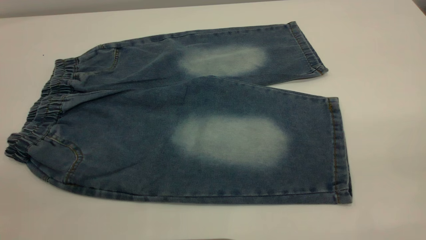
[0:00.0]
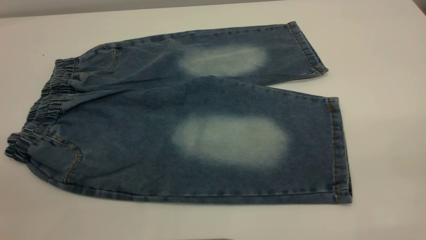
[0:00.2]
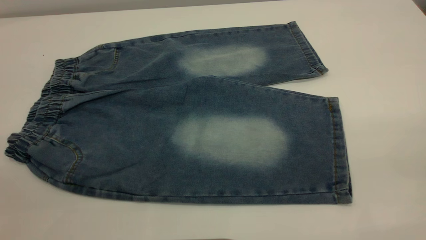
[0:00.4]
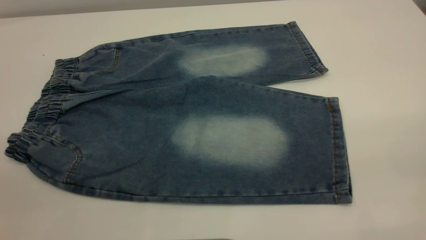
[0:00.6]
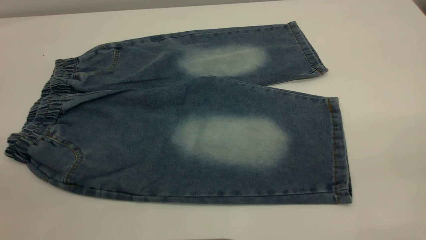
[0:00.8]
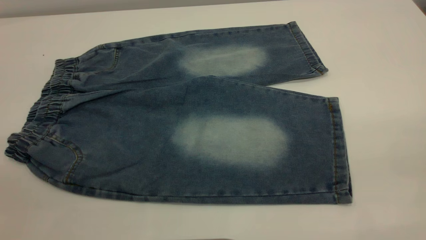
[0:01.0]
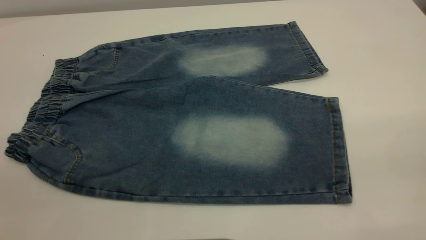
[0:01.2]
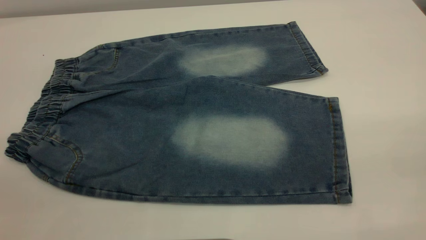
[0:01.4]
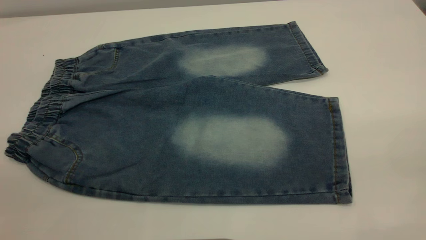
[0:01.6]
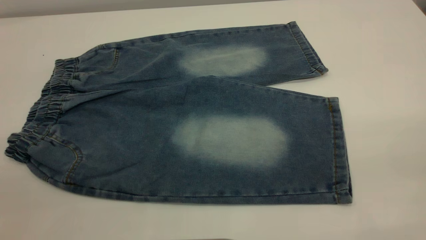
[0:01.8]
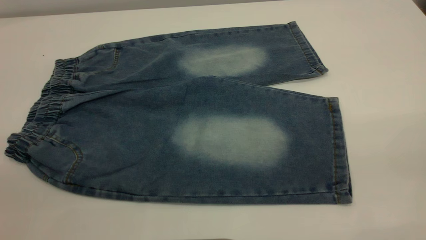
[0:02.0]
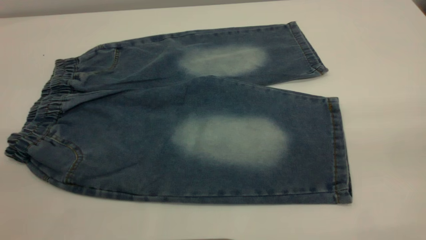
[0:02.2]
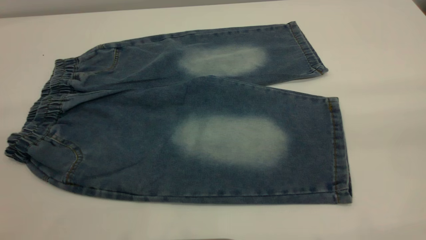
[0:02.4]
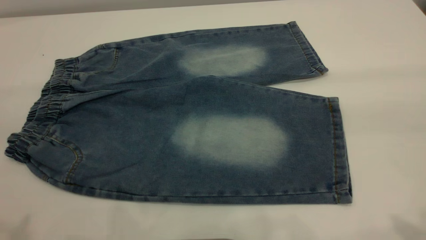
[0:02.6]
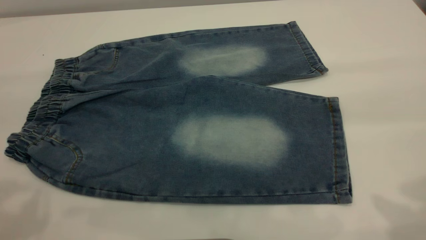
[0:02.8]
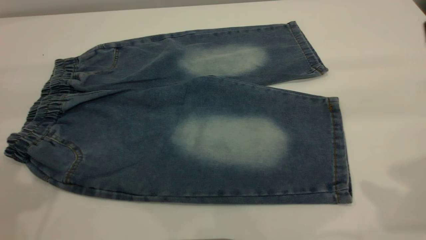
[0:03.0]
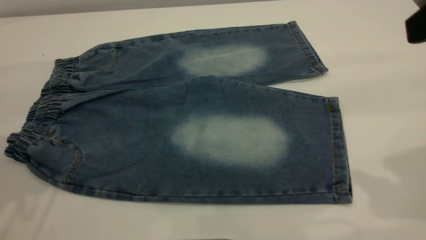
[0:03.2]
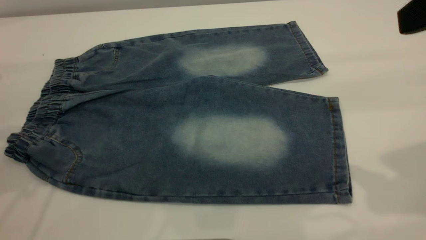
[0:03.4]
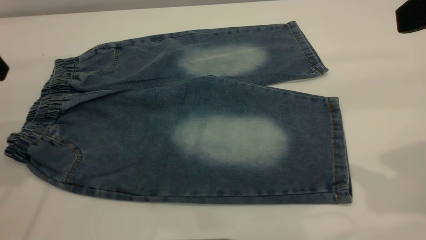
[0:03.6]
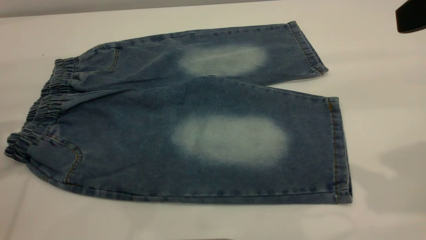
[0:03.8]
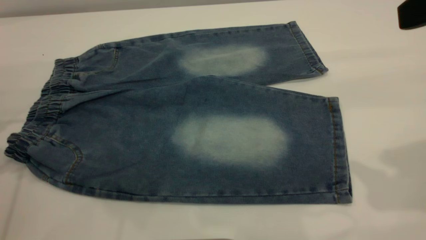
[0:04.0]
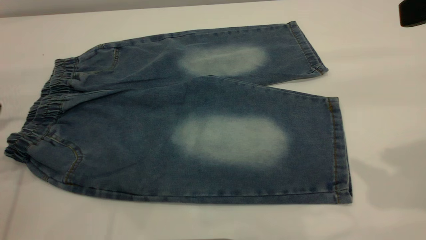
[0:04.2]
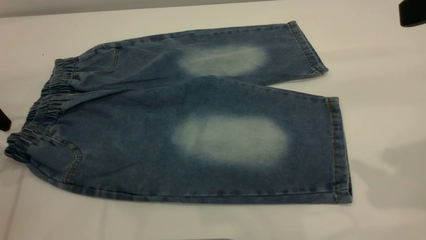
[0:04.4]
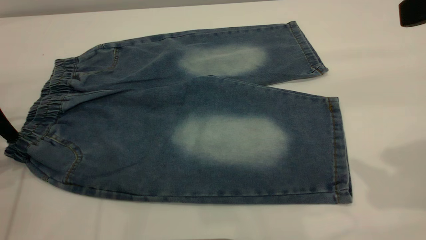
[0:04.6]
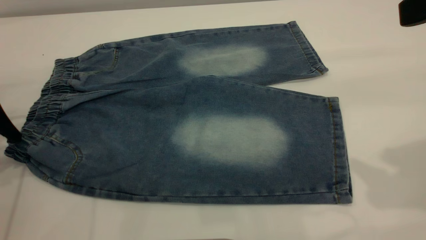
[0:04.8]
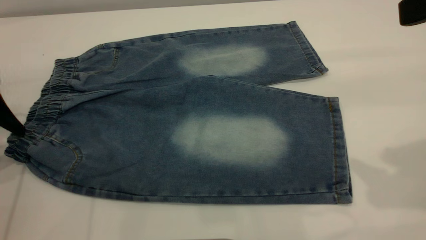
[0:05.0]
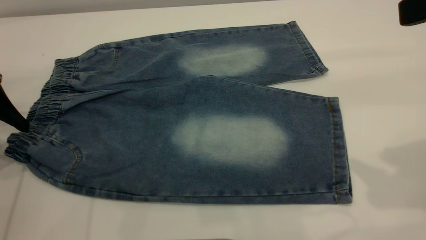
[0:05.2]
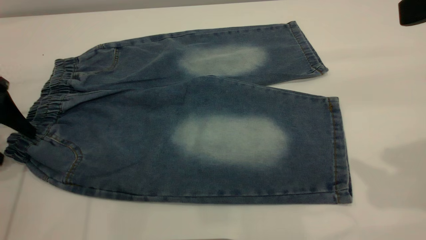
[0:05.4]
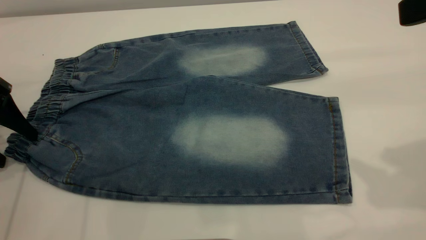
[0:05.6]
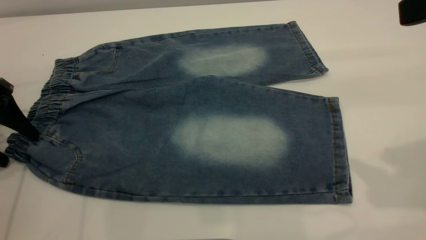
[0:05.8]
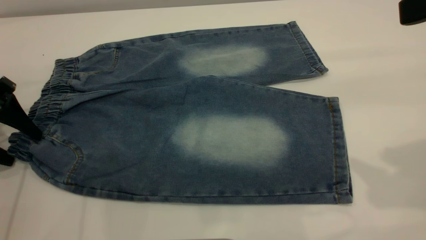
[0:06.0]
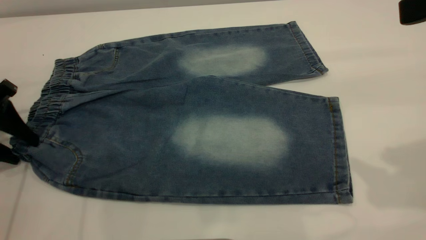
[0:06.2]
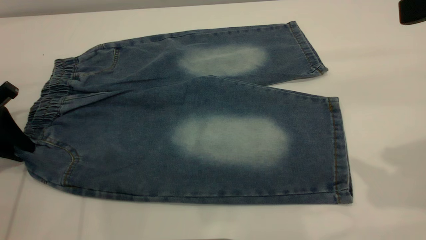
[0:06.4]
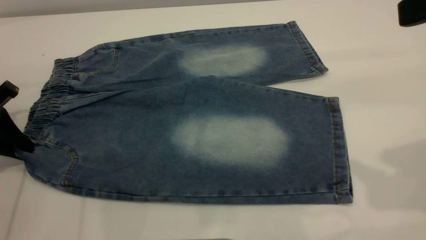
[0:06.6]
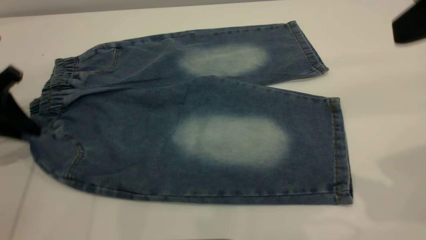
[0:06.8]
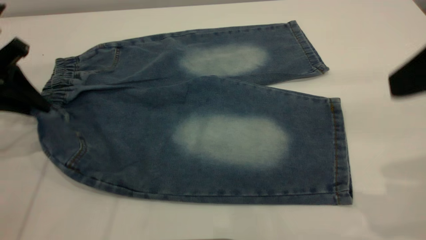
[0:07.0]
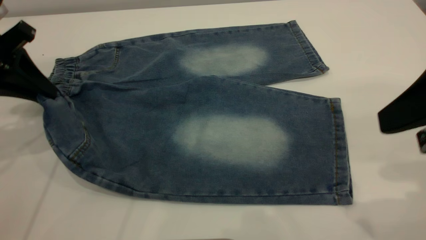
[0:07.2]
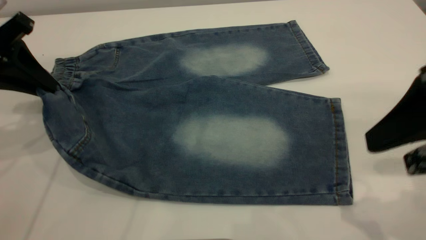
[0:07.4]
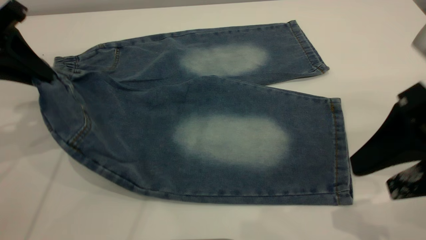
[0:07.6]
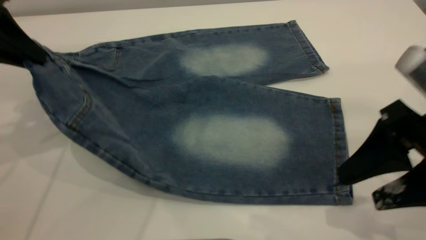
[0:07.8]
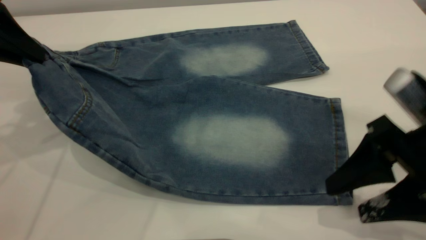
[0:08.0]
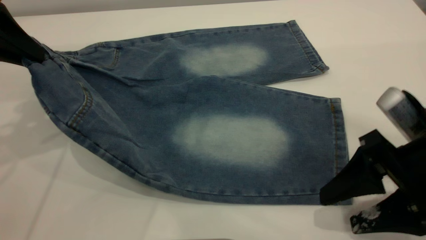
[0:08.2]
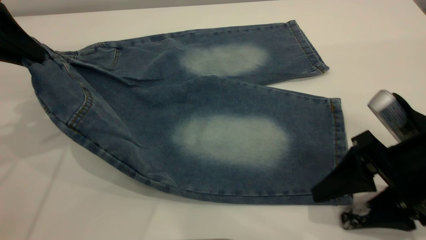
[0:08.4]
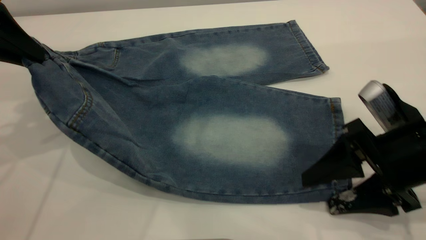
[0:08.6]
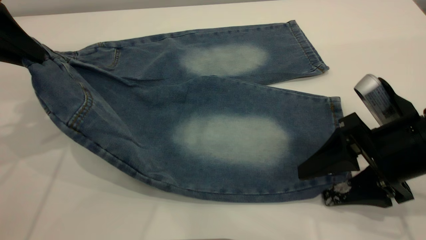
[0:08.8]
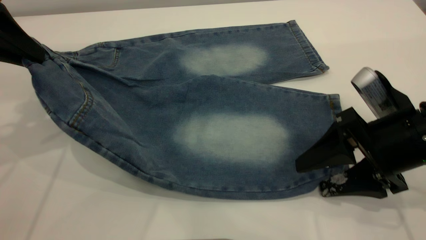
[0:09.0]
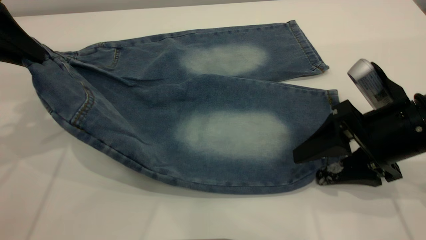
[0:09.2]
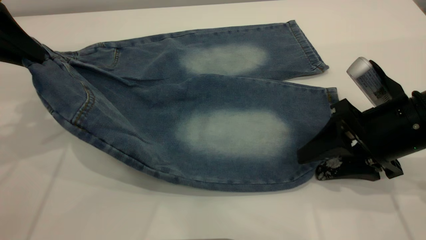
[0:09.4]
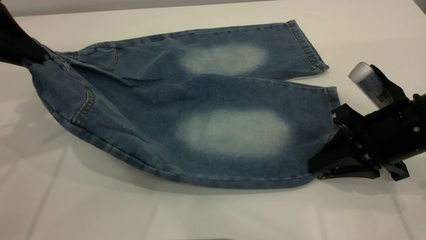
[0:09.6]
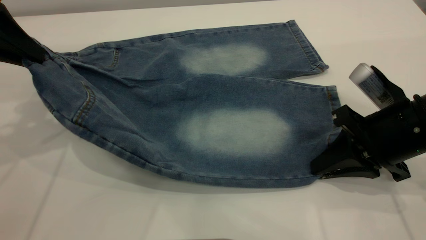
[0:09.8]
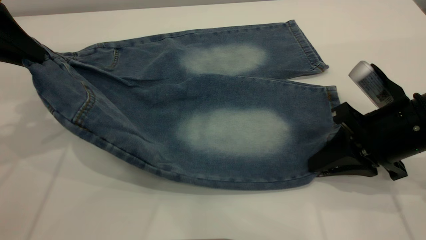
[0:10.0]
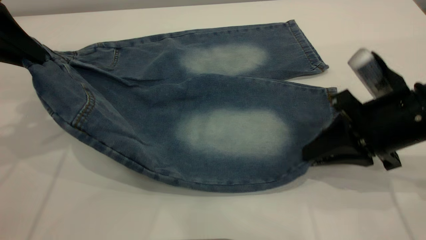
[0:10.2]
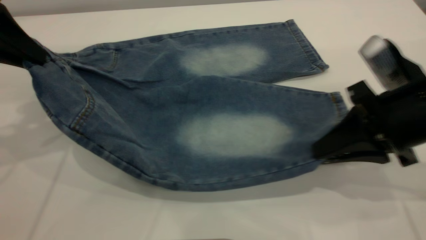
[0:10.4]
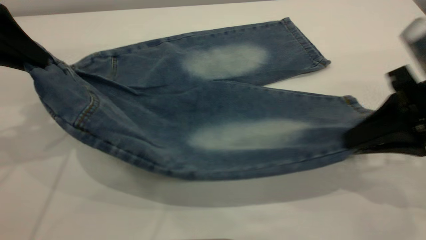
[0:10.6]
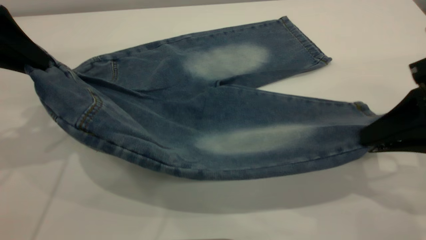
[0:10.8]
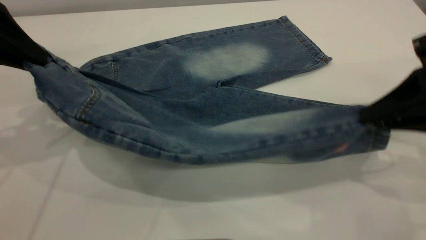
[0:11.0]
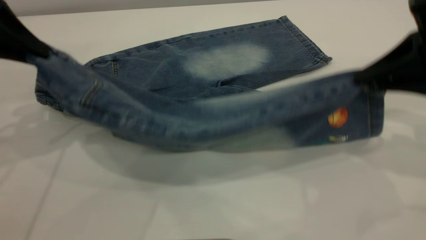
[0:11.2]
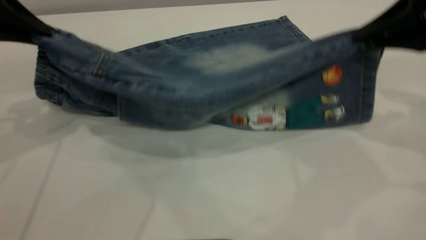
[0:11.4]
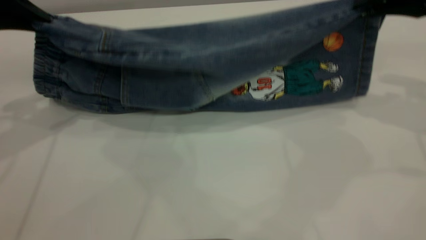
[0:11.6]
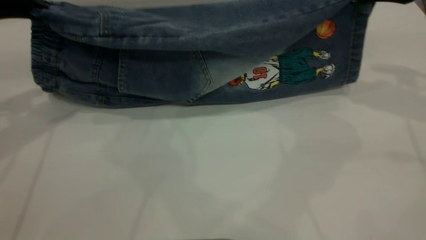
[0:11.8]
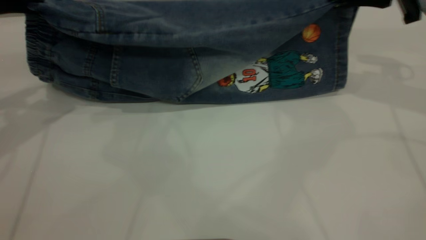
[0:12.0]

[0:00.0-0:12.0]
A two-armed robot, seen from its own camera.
0:00.0 to 0:01.6: Neither gripper changes place.
0:04.4 to 0:06.0: The left gripper goes some 5 cm downward.
0:06.0 to 0:07.6: The right gripper goes approximately 10 cm downward. The left gripper shifts roughly 10 cm upward and to the right, and closes up.
0:07.6 to 0:09.0: The right gripper shifts some 10 cm downward and forward.
0:09.0 to 0:10.4: The right gripper closes up.
0:10.4 to 0:12.0: The right gripper shifts approximately 20 cm forward and upward.

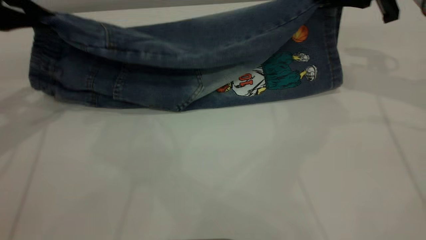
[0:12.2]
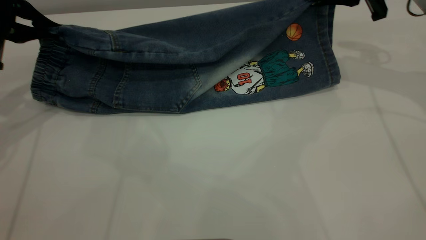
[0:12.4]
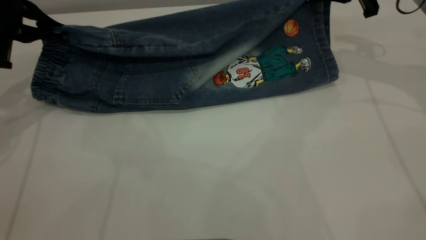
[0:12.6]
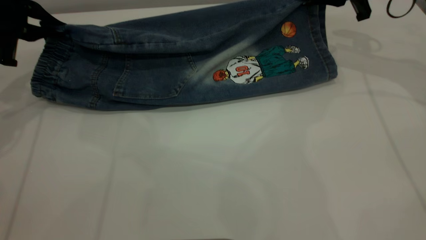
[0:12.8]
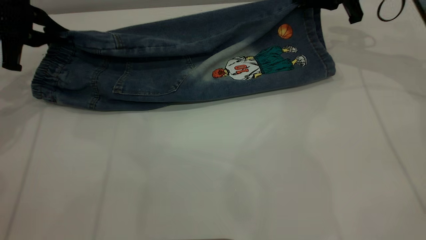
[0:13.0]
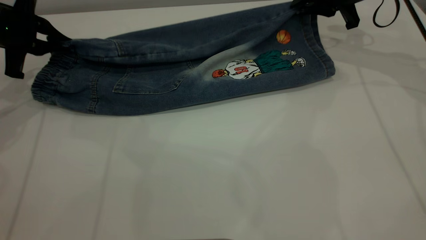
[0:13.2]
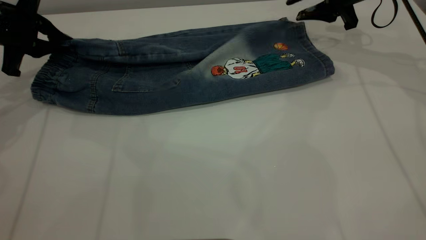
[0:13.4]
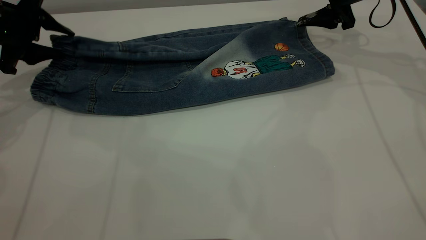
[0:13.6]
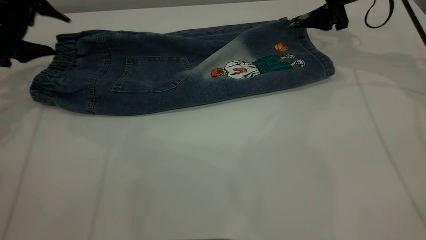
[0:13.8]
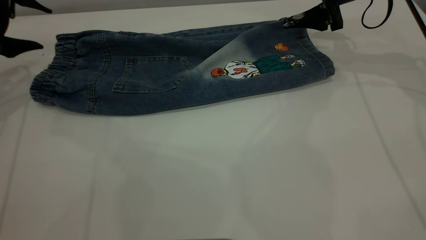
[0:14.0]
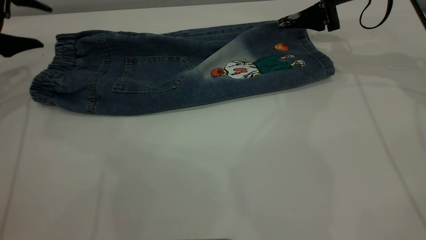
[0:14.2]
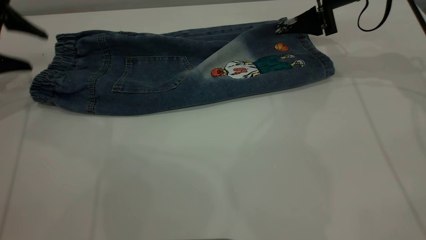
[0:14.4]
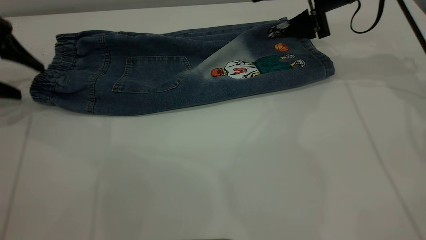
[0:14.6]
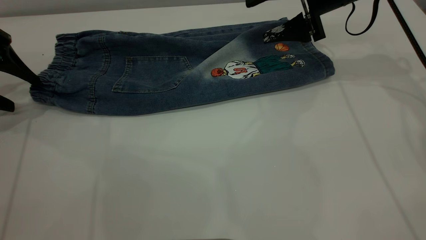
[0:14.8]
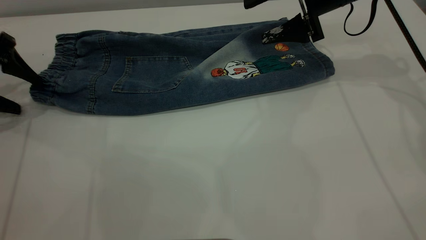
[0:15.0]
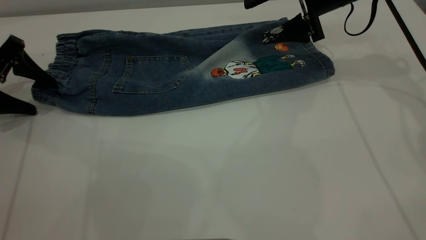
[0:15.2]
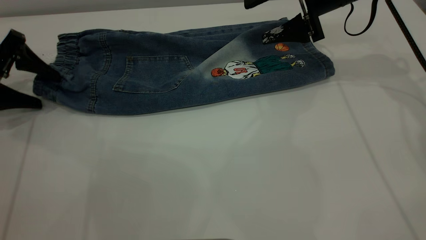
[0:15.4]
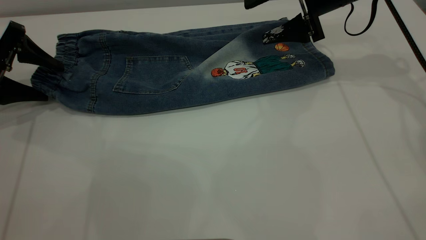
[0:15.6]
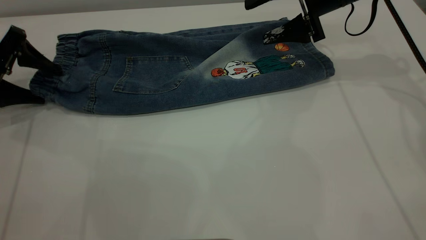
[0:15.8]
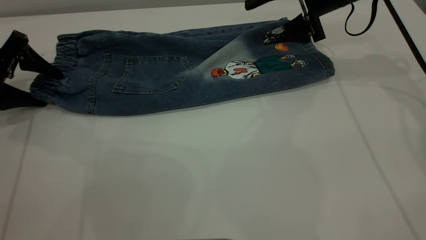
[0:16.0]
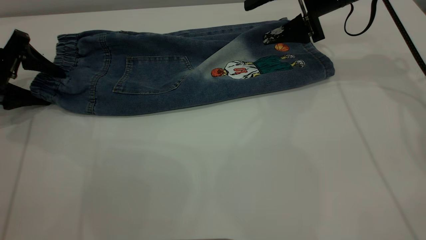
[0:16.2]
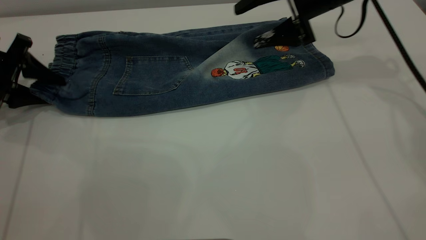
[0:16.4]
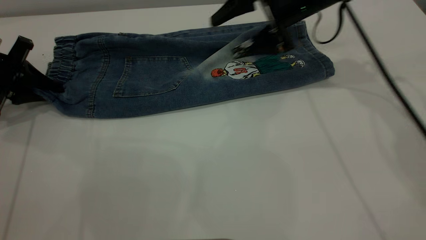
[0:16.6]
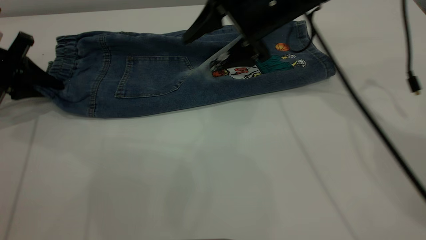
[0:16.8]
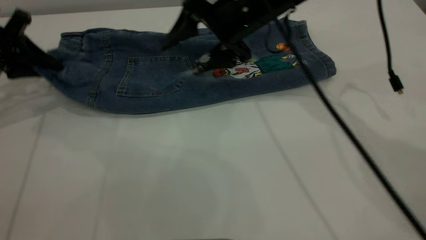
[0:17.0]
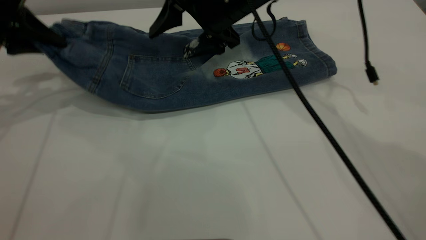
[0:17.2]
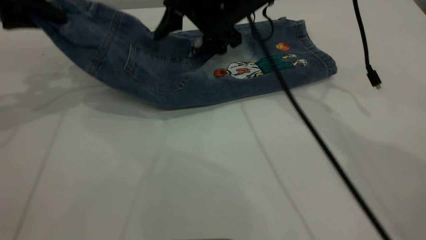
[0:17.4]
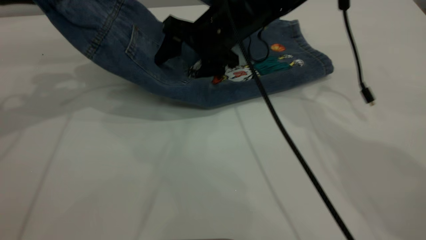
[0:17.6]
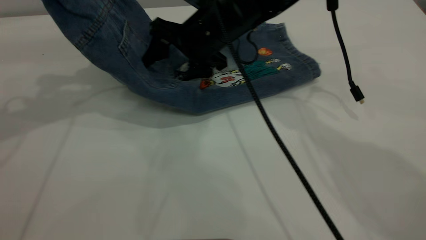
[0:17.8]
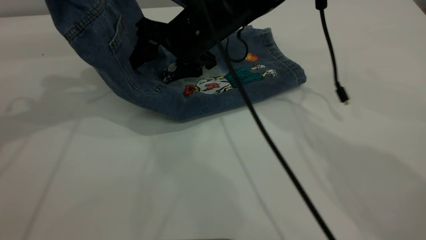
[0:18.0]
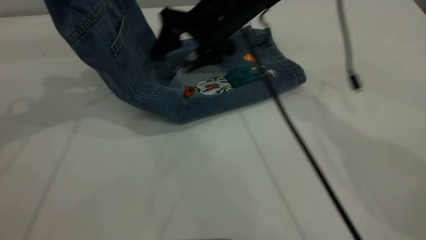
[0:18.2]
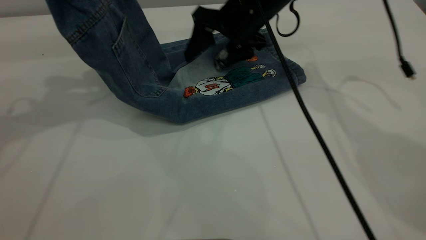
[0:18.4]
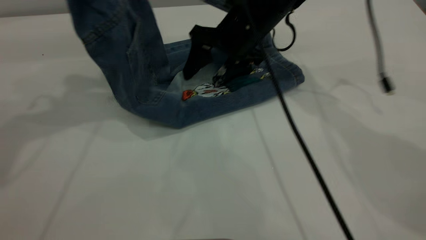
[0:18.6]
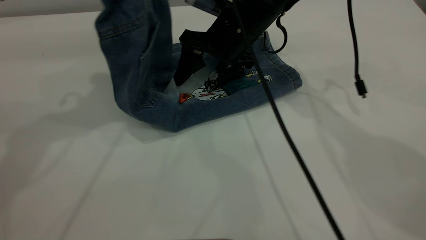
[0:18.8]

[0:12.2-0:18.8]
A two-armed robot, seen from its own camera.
0:12.2 to 0:13.8: The right gripper heads forward, covering about 5 cm, and opens. Meanwhile the left gripper travels downward and forward by about 10 cm, and opens.
0:13.8 to 0:15.4: The left gripper shifts by some 5 cm.
0:15.4 to 0:17.2: The left gripper travels upward by approximately 5 cm, and closes its fingers, while the right gripper heads to the left, covering approximately 15 cm.
0:17.2 to 0:18.8: The left gripper moves to the right and upward, about 15 cm.
